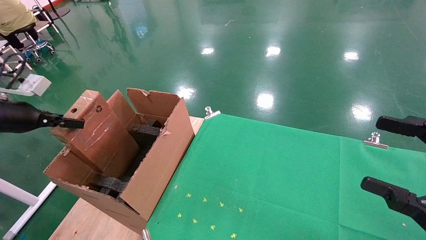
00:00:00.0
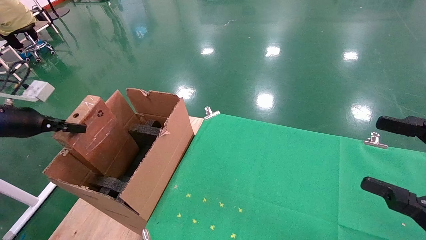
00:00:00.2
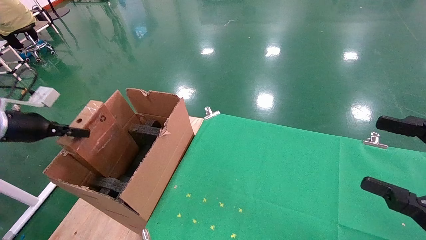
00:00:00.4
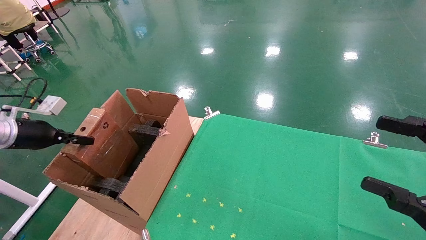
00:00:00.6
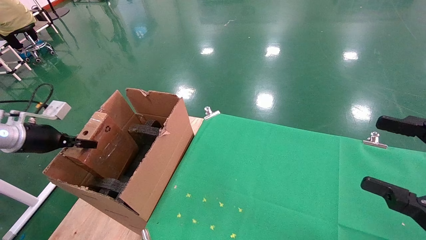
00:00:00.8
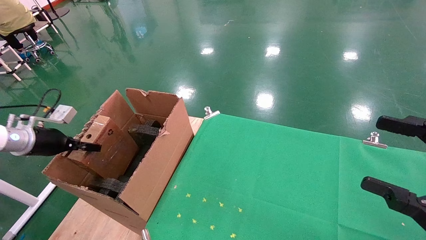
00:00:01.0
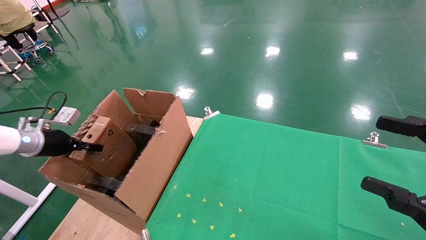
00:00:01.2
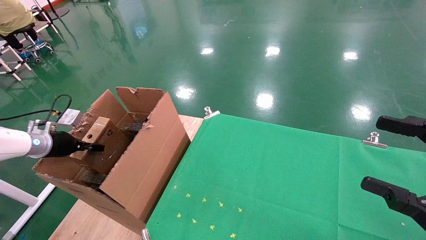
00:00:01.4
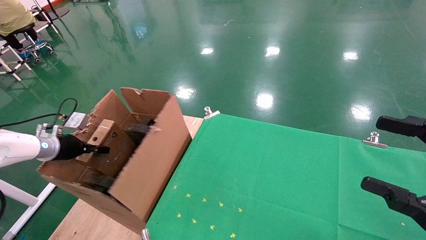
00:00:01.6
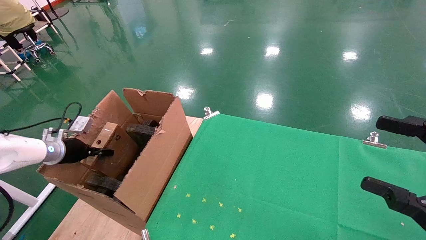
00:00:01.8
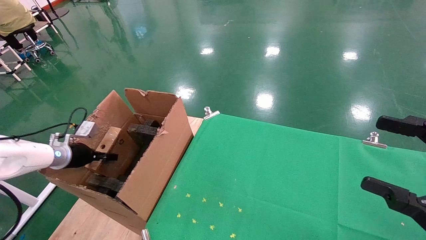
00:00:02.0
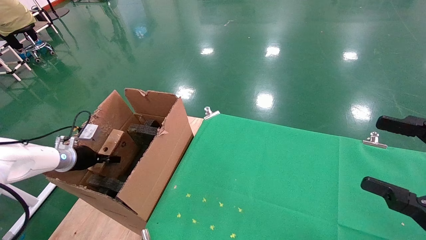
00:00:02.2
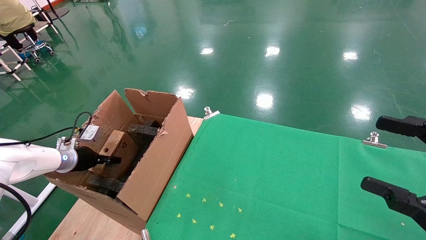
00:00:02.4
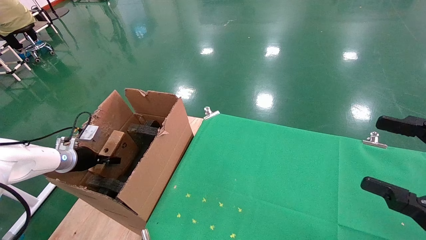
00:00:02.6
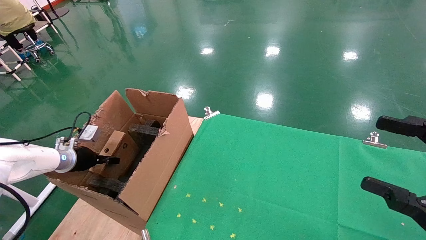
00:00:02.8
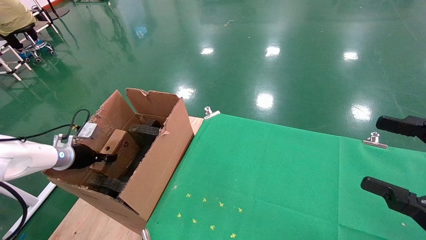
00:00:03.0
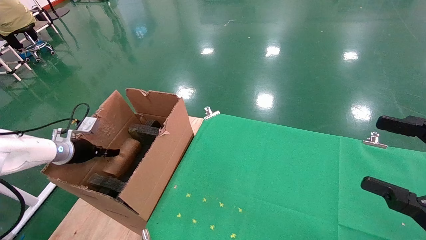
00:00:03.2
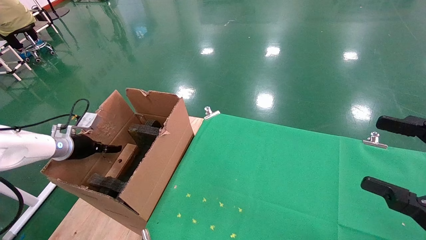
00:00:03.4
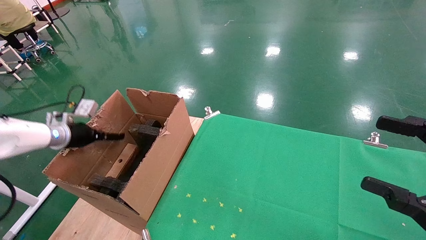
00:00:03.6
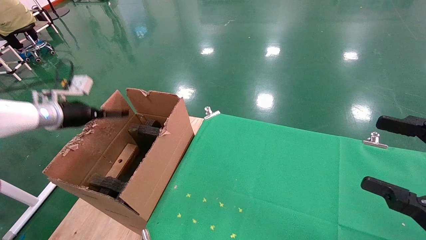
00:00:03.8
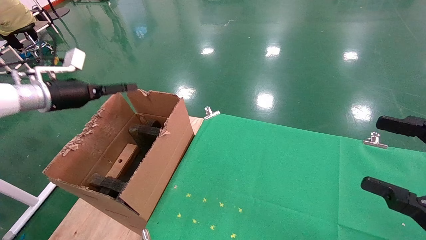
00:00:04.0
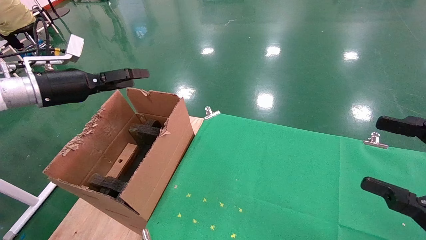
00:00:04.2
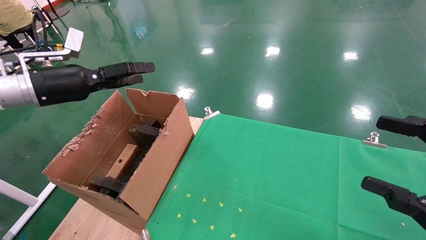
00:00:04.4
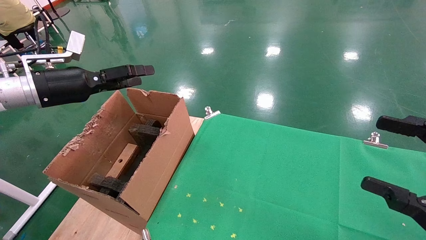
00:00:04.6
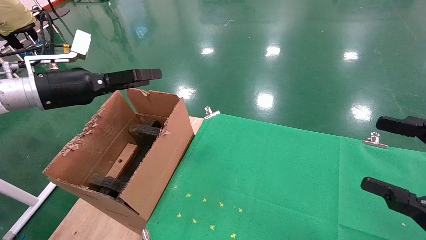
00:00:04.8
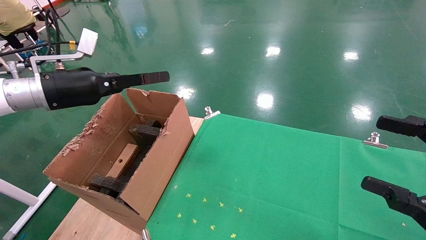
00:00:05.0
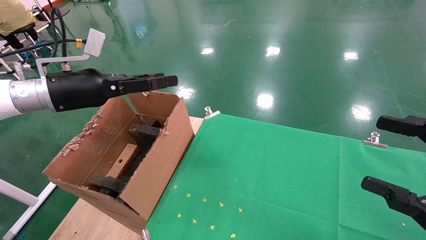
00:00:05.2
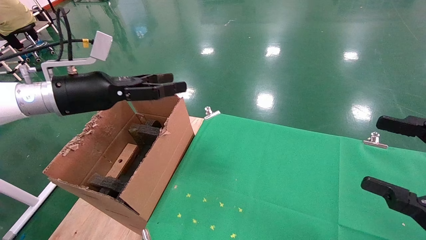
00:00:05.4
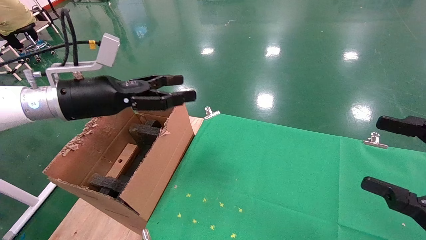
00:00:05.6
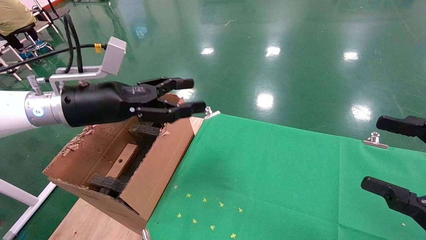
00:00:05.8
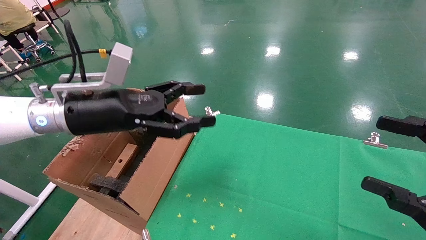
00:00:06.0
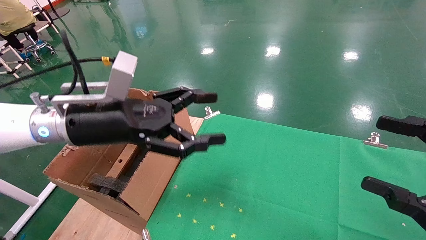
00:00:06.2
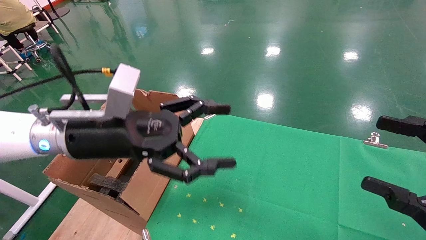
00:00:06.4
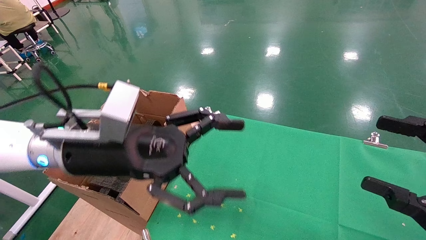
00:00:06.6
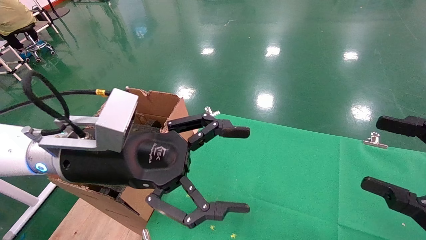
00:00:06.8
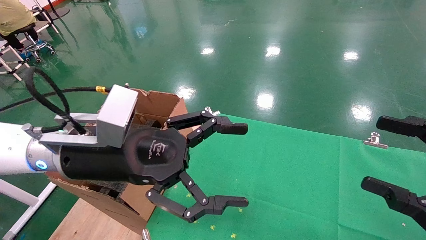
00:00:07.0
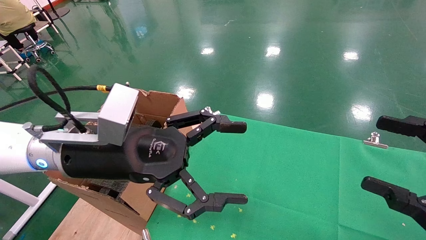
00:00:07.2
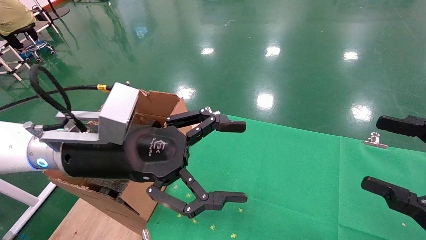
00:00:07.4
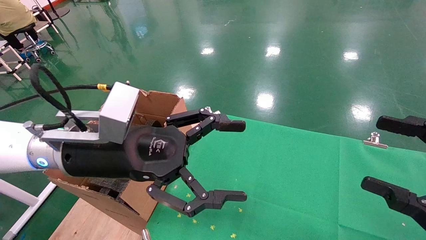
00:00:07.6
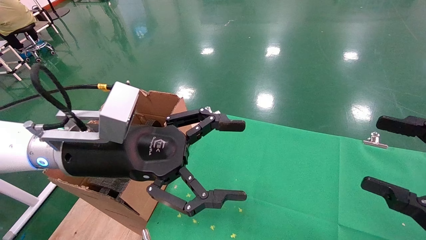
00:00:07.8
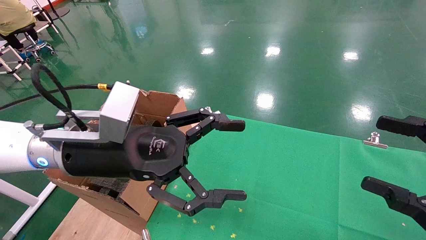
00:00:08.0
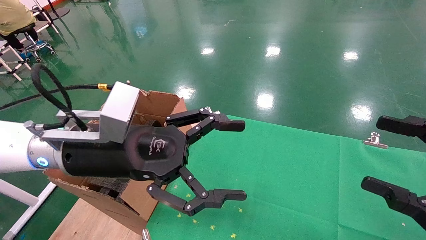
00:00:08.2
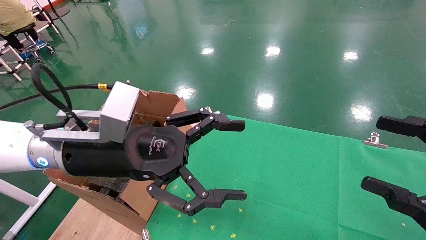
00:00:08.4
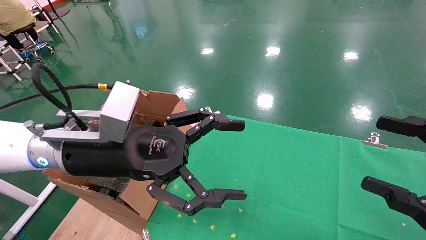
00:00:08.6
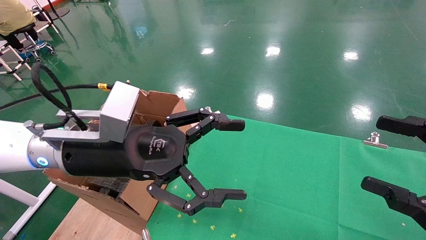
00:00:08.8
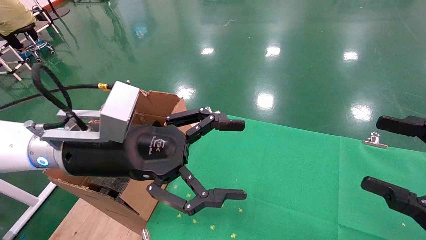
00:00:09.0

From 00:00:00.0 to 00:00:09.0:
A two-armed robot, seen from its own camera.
Task of the whole recording: using a robotic arm to pick up a cardboard box and palace it the carton.
Step, from 00:00:00.0 to 00:00:04.0: Place the mouse and the power cord paper box into the container.
From 00:00:00.0 to 00:00:01.6: The left gripper shifts roughly 15 cm downward and forward.
From 00:00:01.6 to 00:00:03.0: The grippers move only a little.
From 00:00:03.0 to 00:00:04.4: The left gripper moves upward and to the right, approximately 20 cm, and opens up.
From 00:00:04.4 to 00:00:06.0: The left gripper goes approximately 15 cm to the right.
From 00:00:06.0 to 00:00:07.6: The left gripper goes approximately 10 cm to the right and backward.
From 00:00:07.6 to 00:00:09.0: Both grippers stay about where they are.
